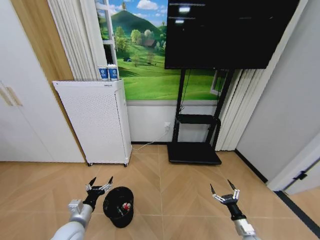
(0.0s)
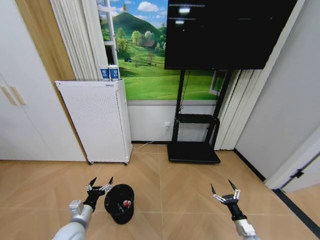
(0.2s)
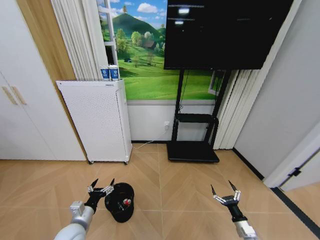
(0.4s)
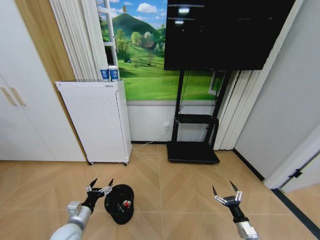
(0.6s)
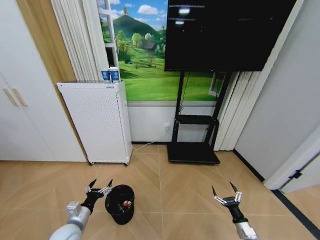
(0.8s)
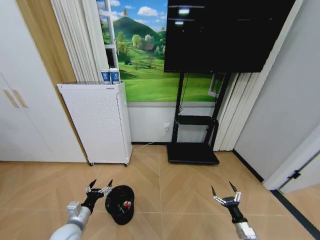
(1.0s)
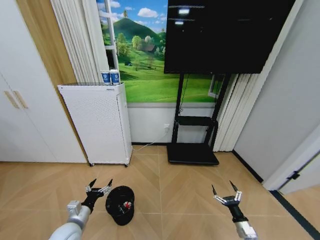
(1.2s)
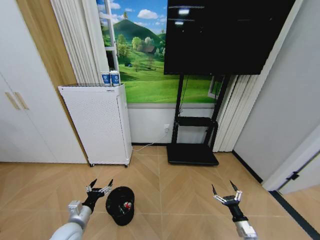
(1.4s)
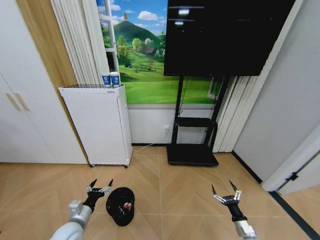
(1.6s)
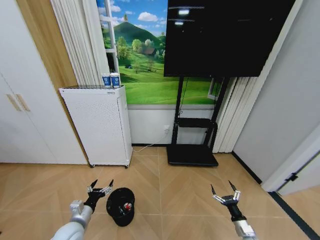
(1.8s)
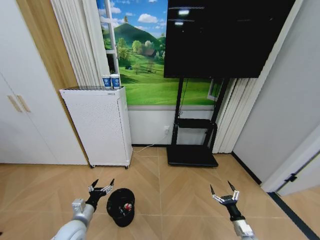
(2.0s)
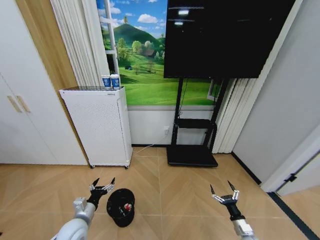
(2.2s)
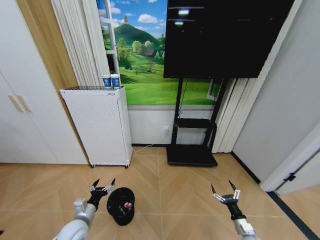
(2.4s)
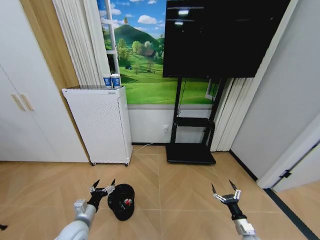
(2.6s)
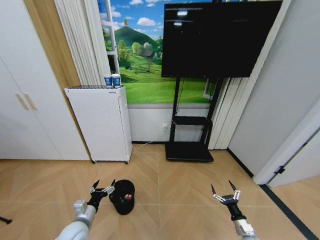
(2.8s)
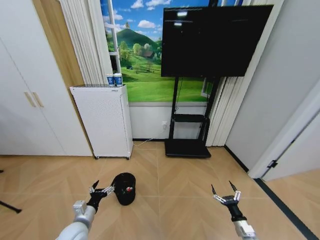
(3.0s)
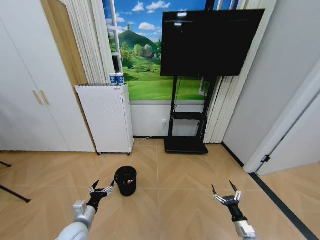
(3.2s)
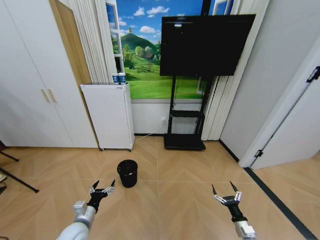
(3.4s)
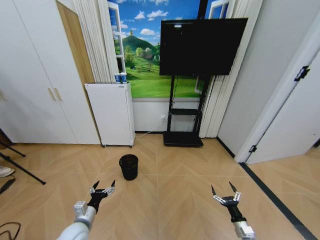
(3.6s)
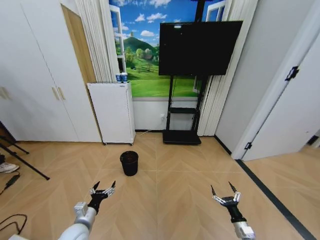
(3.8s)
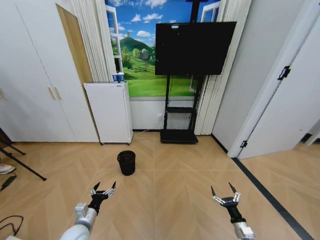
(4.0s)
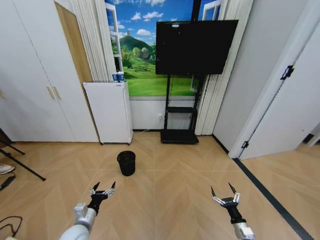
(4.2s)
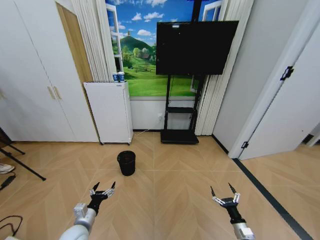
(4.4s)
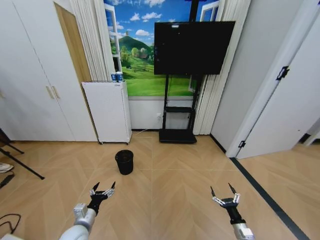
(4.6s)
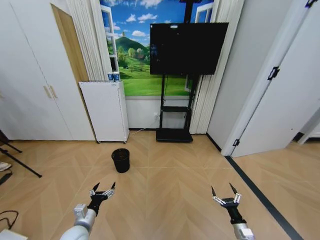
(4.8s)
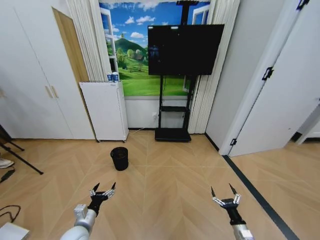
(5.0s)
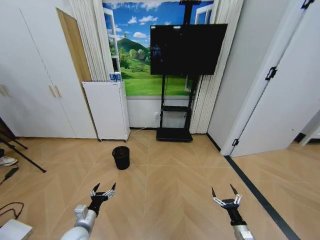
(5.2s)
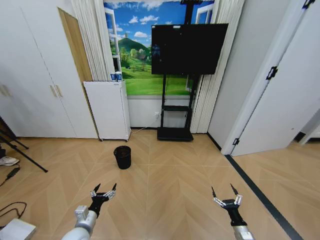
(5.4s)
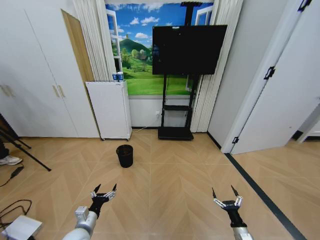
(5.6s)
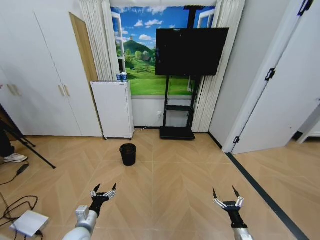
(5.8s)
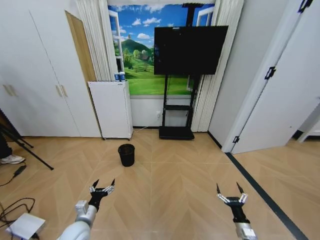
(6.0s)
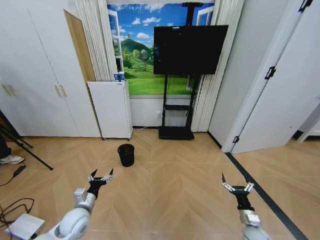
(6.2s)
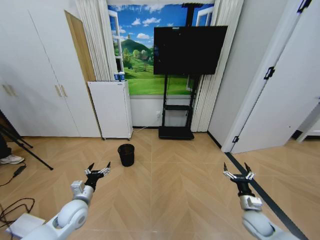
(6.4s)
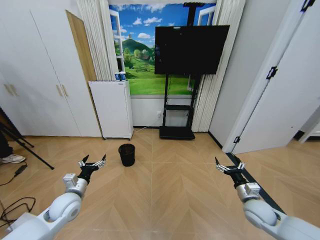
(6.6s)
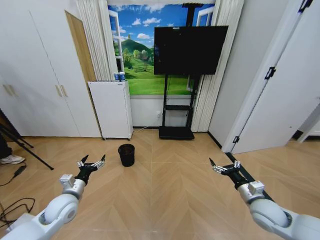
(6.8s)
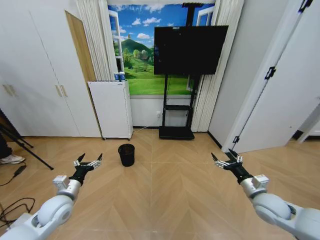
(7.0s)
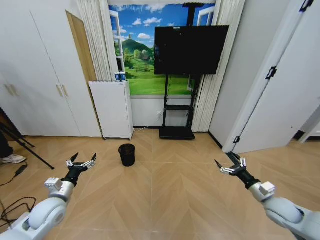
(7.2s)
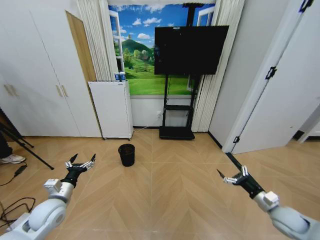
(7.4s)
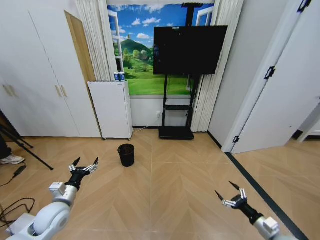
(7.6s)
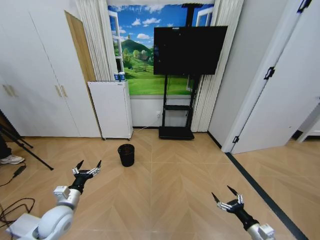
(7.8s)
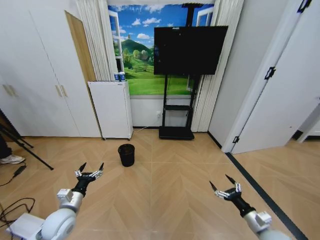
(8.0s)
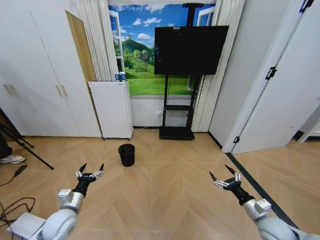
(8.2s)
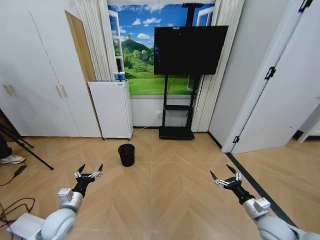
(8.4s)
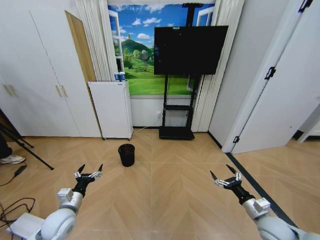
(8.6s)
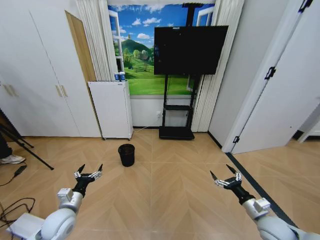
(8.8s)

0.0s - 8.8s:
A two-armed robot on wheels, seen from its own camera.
Task of the whole recording: Pick up the trash bin and place the garbage on the floor into it.
0.0s - 1.4s: The grippers make only small movements.
5.8s - 7.4s: The right gripper is displaced upward and to the right by about 20 cm. The left gripper travels upward, to the left and forward by some 15 cm.
7.4s - 8.8s: The right gripper shifts roughly 10 cm to the left.
